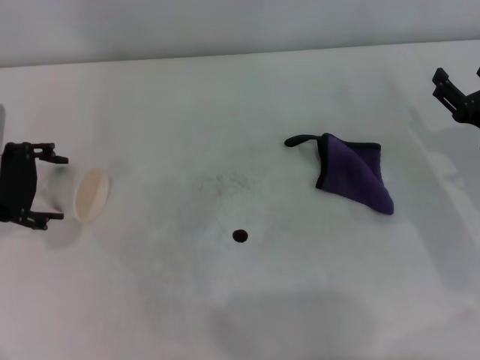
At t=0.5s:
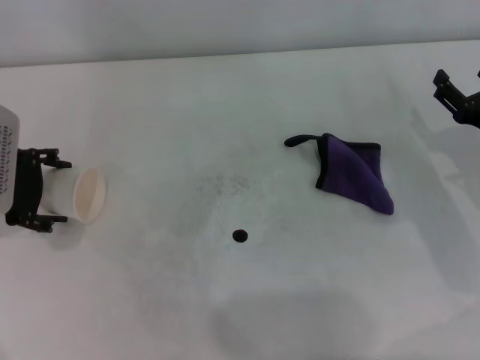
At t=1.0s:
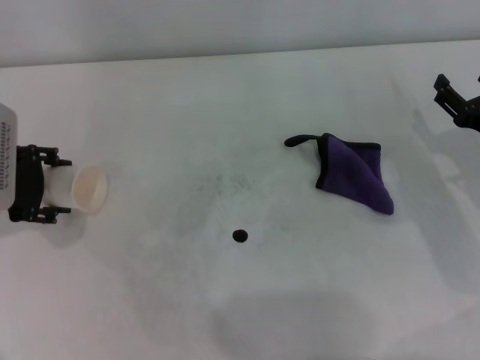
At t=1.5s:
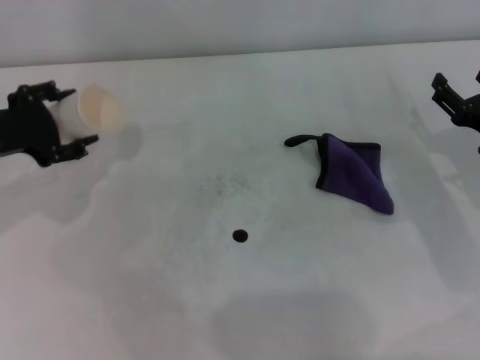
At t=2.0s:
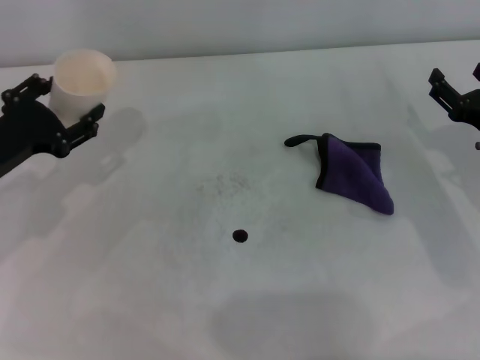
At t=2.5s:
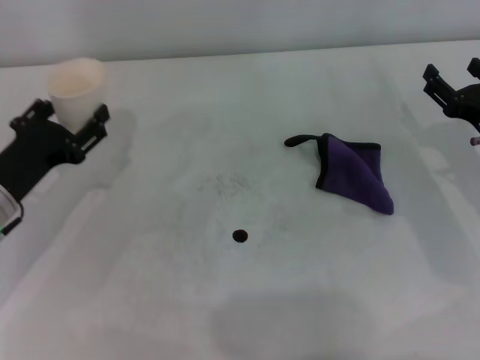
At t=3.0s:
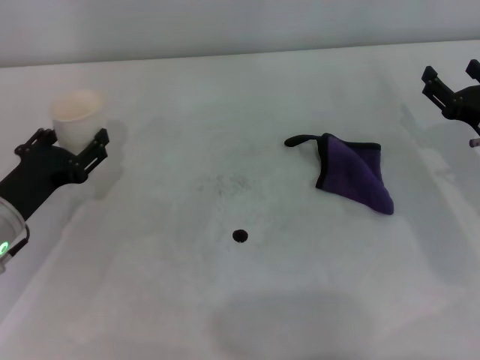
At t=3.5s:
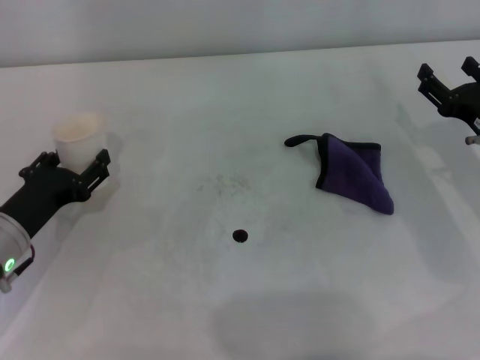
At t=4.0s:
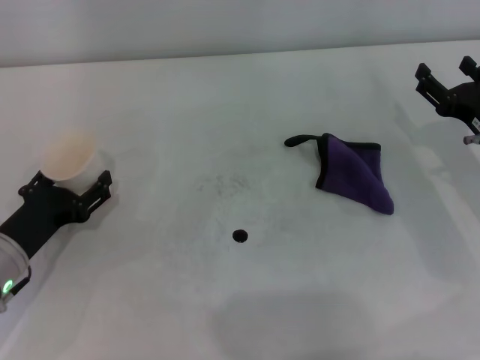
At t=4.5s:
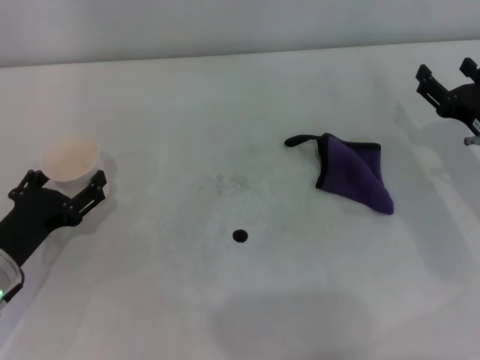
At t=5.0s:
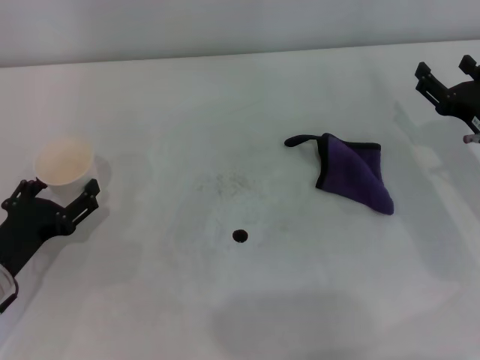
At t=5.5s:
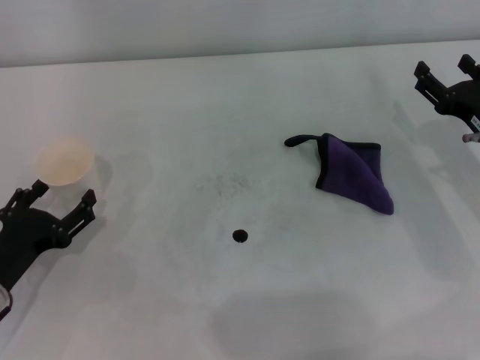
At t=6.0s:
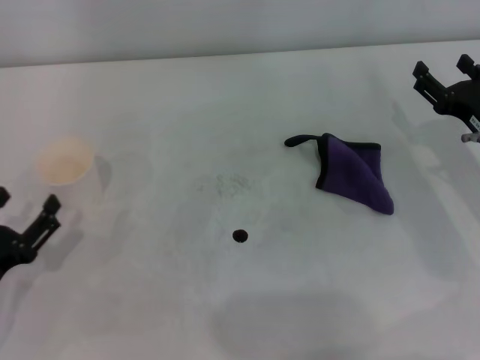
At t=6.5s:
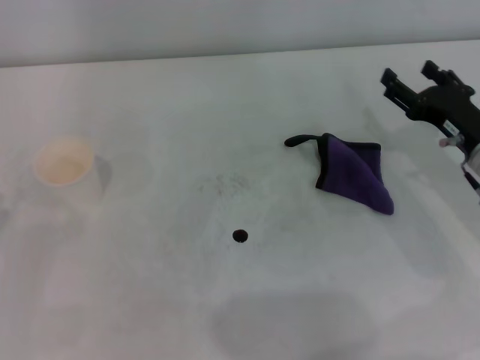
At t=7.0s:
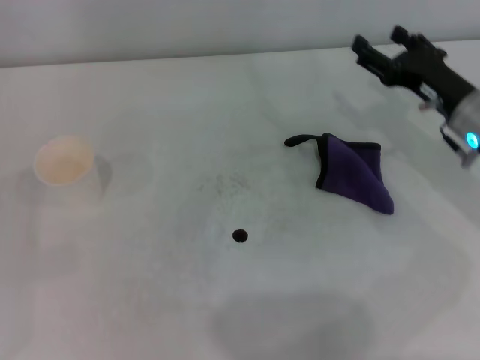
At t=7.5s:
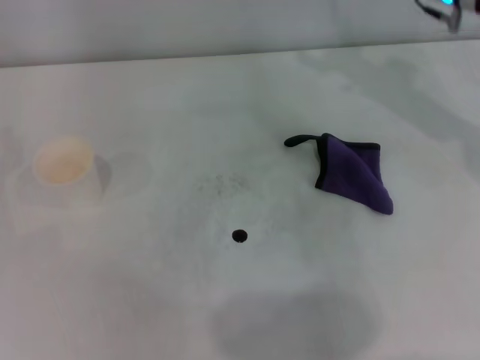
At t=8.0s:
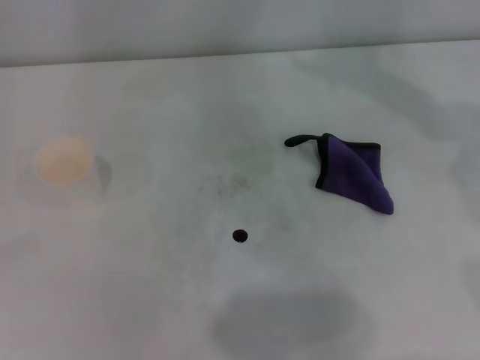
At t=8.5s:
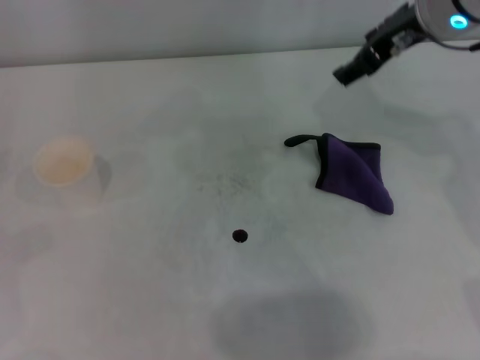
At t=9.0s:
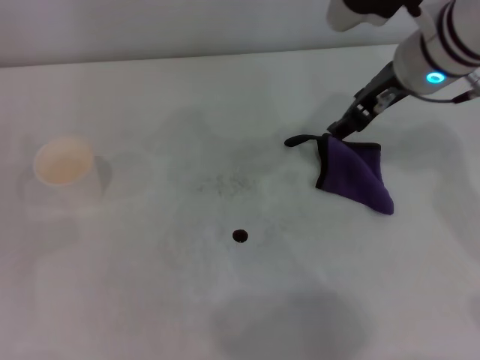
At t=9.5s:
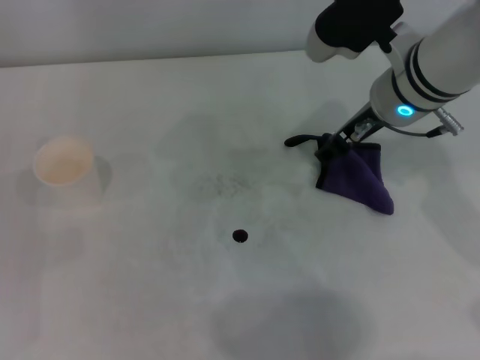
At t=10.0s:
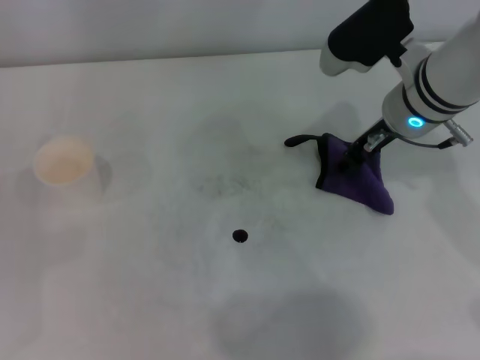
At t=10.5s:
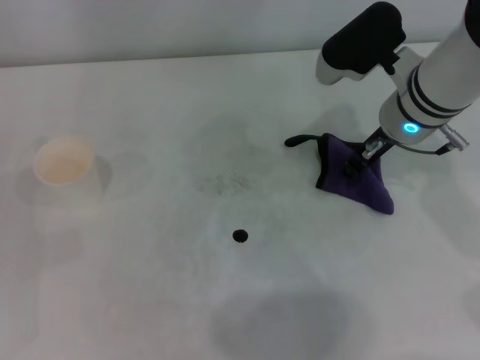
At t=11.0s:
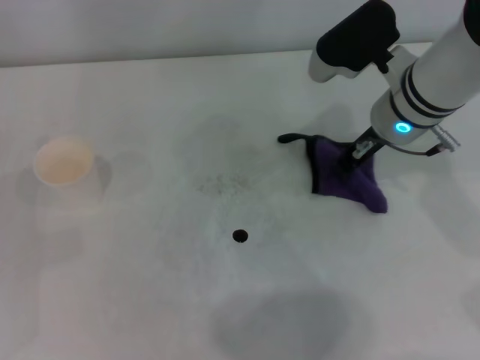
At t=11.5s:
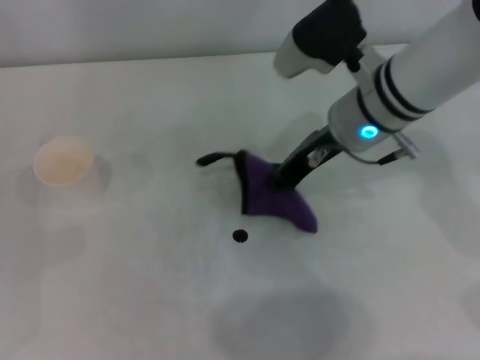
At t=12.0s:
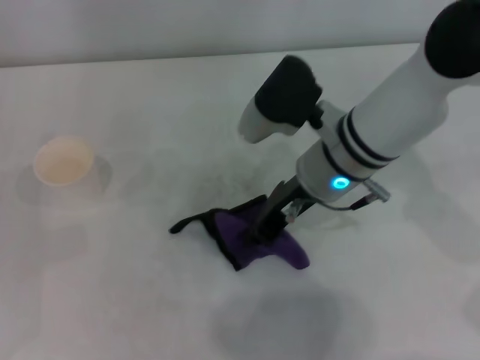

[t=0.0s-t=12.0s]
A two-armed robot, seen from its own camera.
Step, t=1.0s to t=4.0s: Stand the paper cup upright with the left gripper.
Step, t=4.5s to t=10.0s: Grasp the rag with the right gripper.
t=0.0s to t=2.0s: The left gripper goes some 5 cm downward, and closes.
t=2.0s to t=4.0s: The left gripper shifts about 10 cm downward and backward.
t=4.0s to t=6.0s: The left gripper travels backward by roughly 10 cm, and opens up.
t=6.0s to t=8.0s: The right gripper is displaced upward, forward and to the left by about 30 cm, while the left gripper goes about 15 cm to the left and forward.
t=8.0s to t=10.0s: The right gripper travels downward and backward by some 15 cm.
t=10.0s to t=12.0s: The right gripper goes roughly 5 cm to the left, and closes.

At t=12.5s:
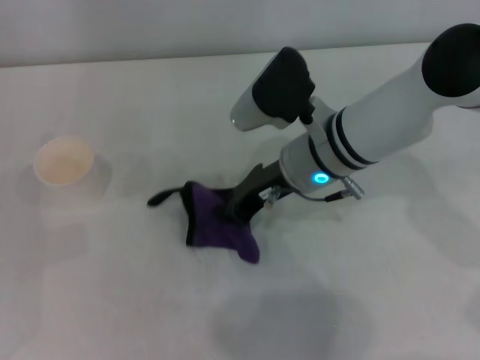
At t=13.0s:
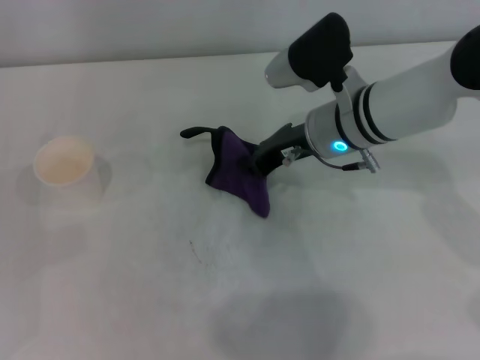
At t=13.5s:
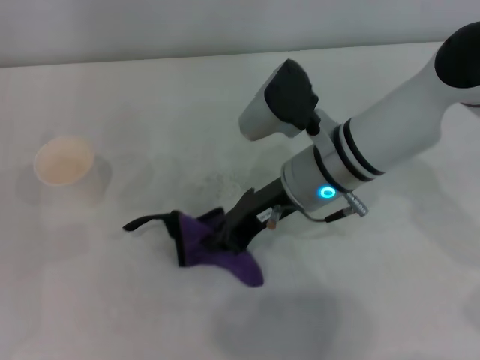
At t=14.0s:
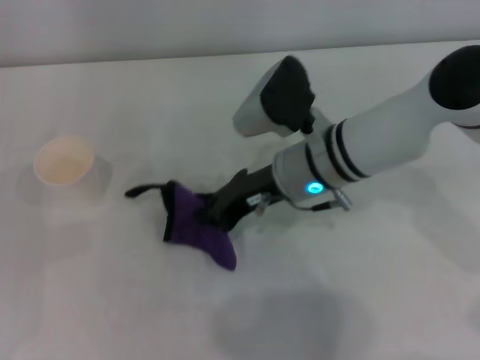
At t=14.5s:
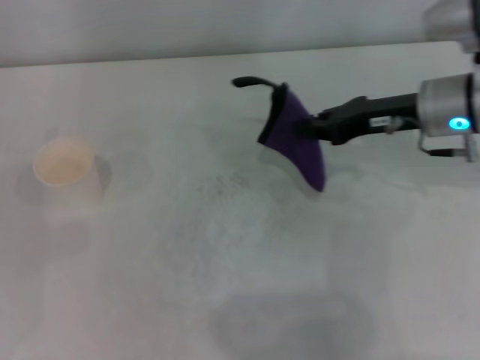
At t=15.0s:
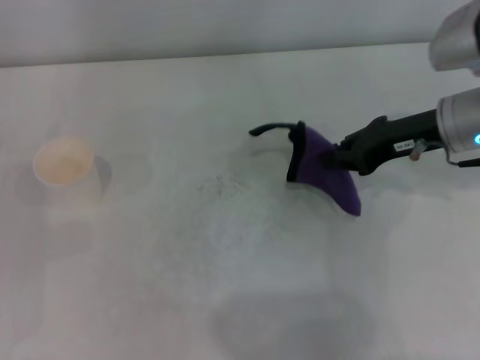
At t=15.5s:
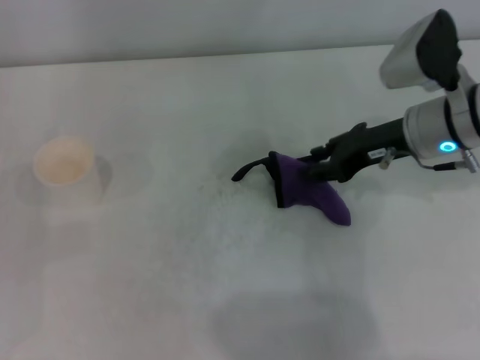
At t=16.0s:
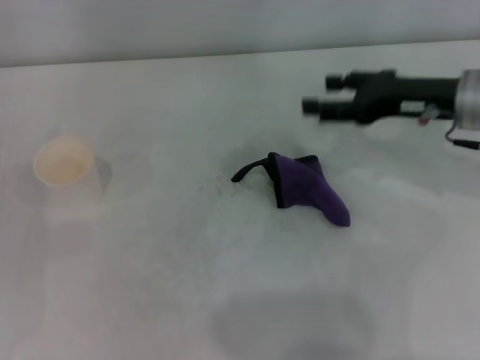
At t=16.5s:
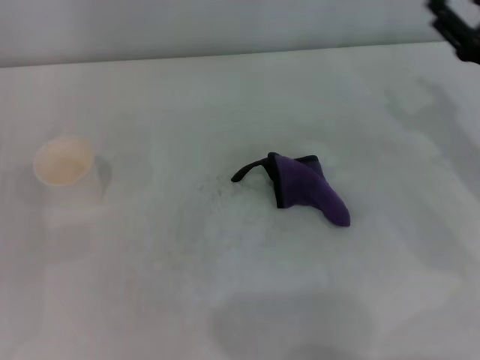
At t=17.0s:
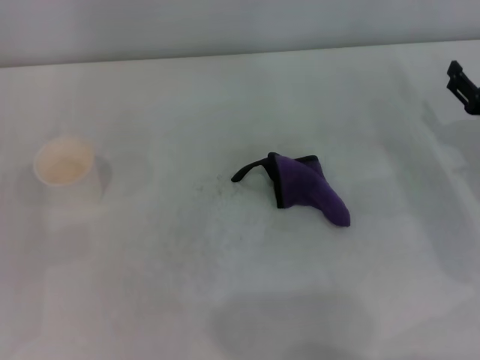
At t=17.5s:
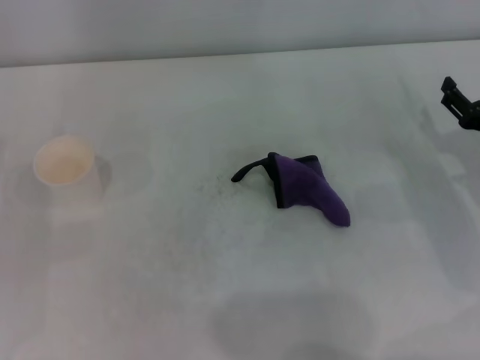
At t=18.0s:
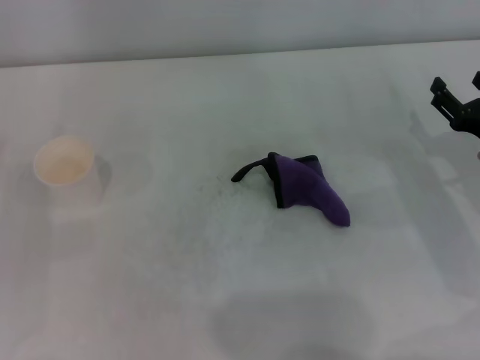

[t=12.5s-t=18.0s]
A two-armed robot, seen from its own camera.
Step, t=14.5s to t=15.0s: Place the rag on the table with the right gripper.
t=12.5s to t=14.5s: The right gripper travels to the right by about 15 cm.
t=14.5s to t=16.0s: The right gripper opens its fingers.
t=16.0s to t=18.0s: The right gripper moves downward, to the right and backward, roughly 15 cm.

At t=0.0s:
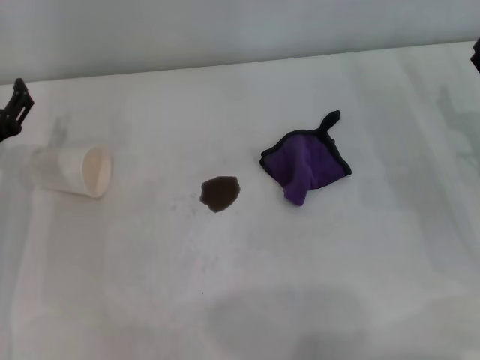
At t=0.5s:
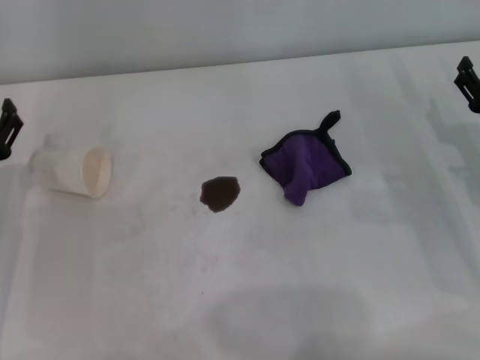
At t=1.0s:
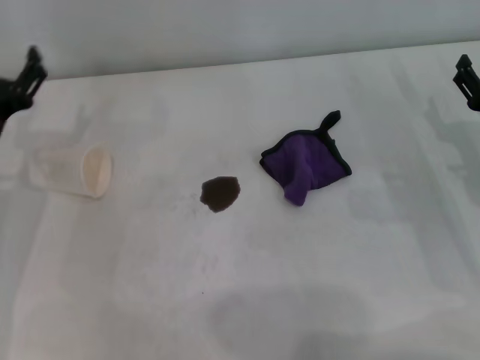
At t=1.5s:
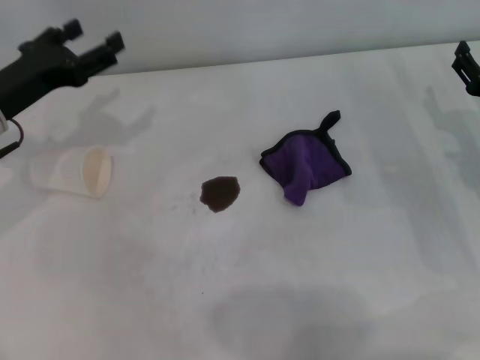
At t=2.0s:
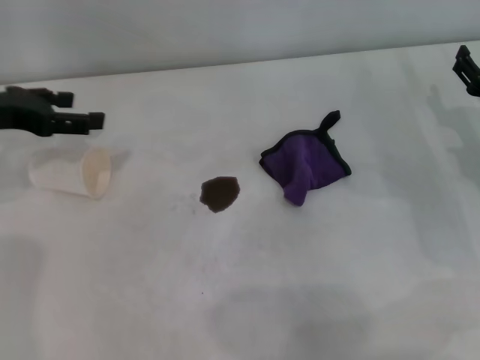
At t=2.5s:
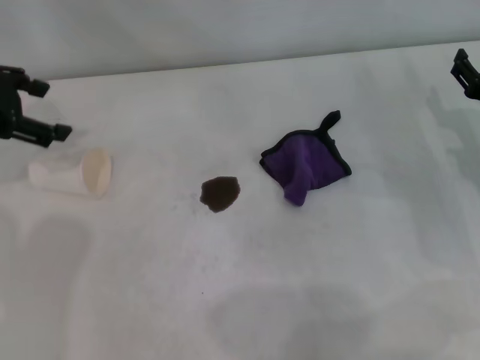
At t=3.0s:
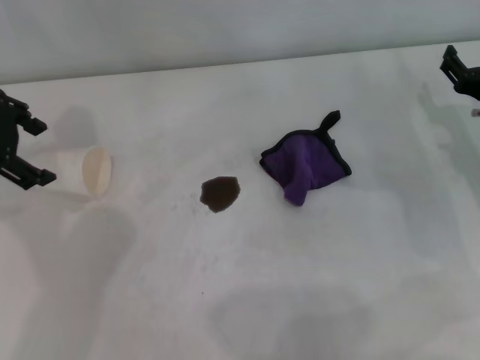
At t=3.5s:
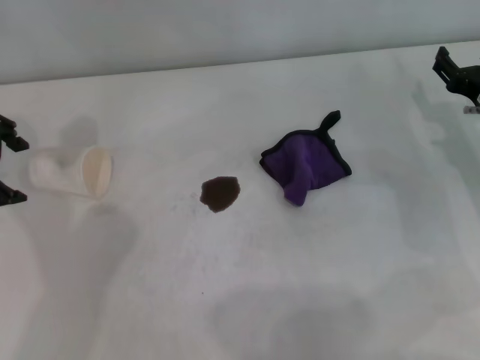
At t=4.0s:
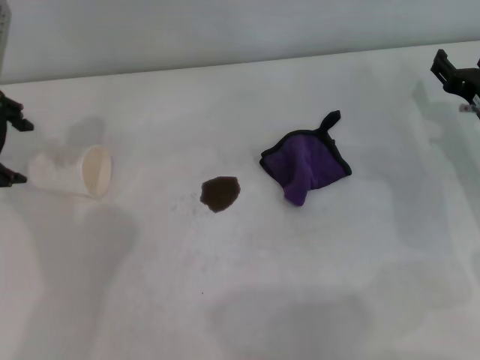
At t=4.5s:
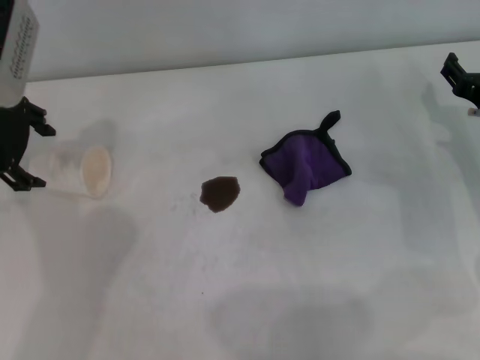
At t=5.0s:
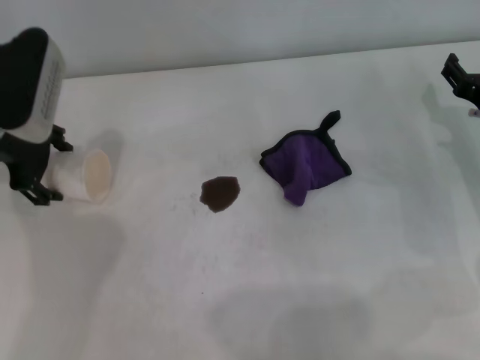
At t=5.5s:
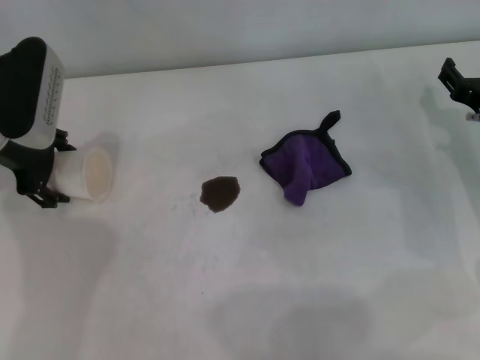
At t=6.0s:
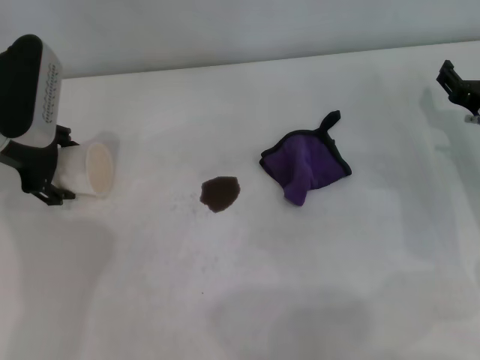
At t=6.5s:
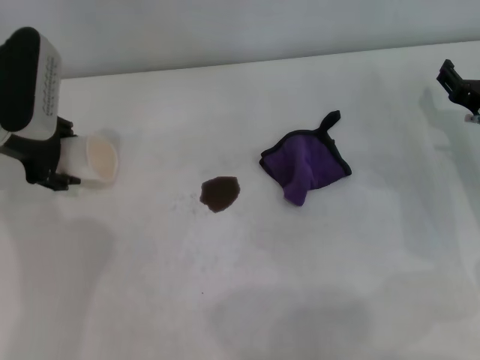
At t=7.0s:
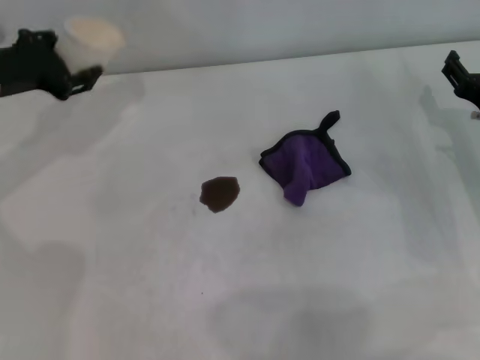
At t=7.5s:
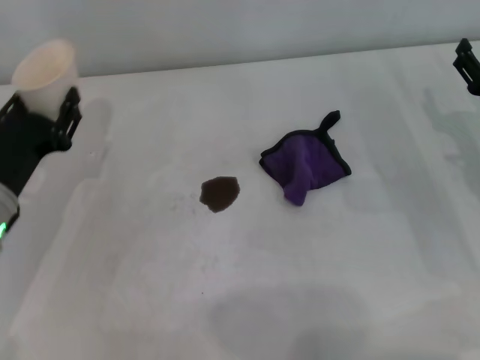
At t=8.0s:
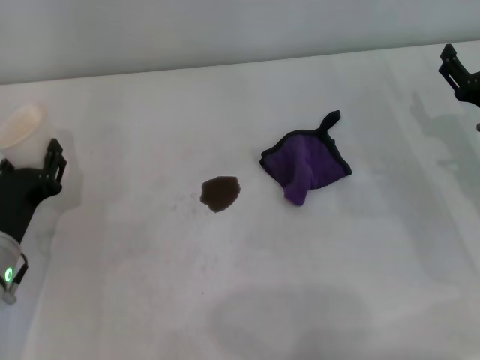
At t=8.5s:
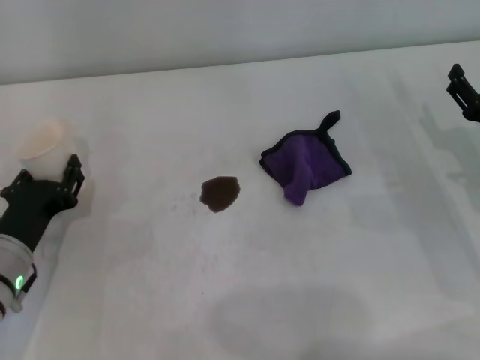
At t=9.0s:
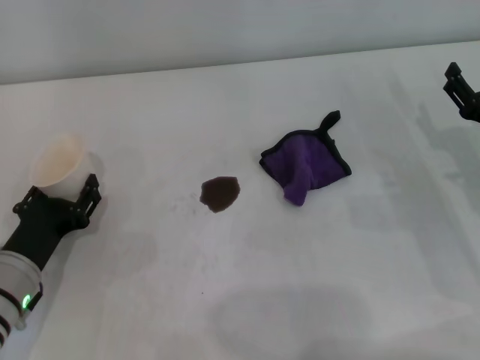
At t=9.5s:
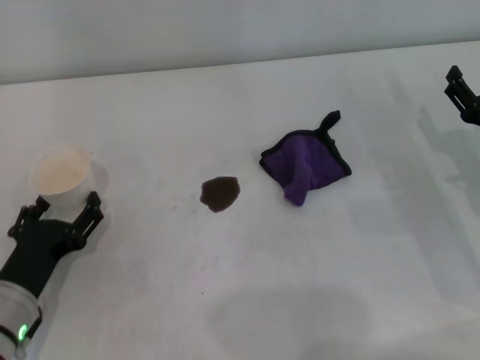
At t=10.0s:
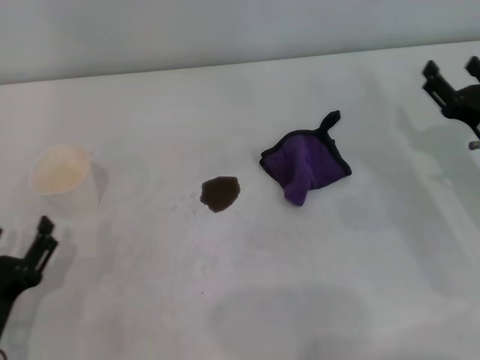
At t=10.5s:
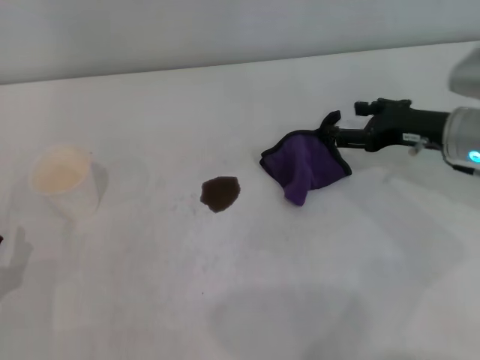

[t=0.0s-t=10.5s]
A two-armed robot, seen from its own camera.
Step, t=0.0s to t=6.0s: Grasp the paper cup with the left gripper.
Step, t=6.5s to t=9.0s: Stand the paper cup upright with the left gripper.
t=0.0s to t=2.0s: The left gripper moves upward and forward, about 15 cm.
t=2.0s to t=4.0s: The left gripper is displaced upward by roughly 5 cm.
t=4.0s to t=6.5s: The left gripper goes approximately 5 cm downward, and closes.
t=6.5s to t=8.5s: The left gripper heads backward and downward, covering some 20 cm, and closes.
t=8.5s to t=10.5s: The right gripper shifts roughly 5 cm forward. The left gripper moves backward, some 10 cm, and opens.
